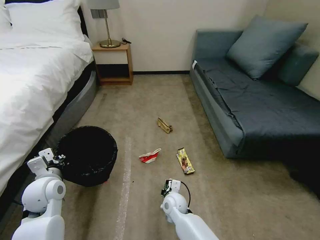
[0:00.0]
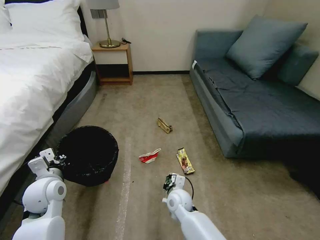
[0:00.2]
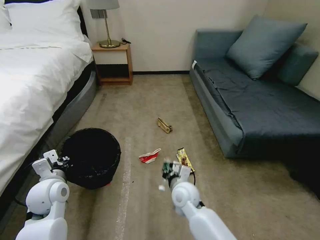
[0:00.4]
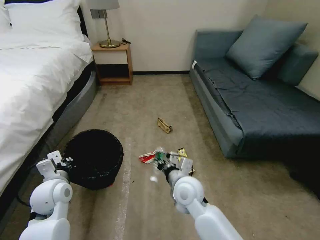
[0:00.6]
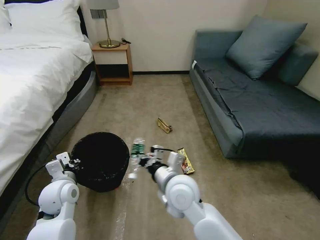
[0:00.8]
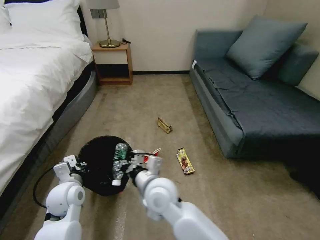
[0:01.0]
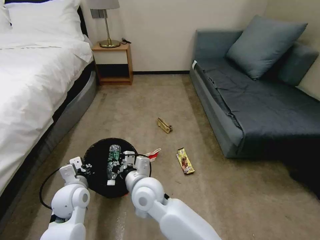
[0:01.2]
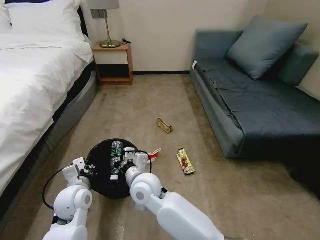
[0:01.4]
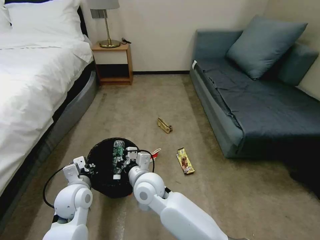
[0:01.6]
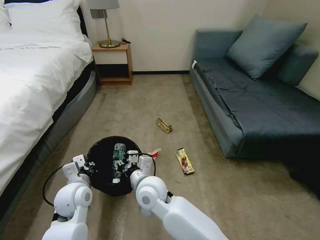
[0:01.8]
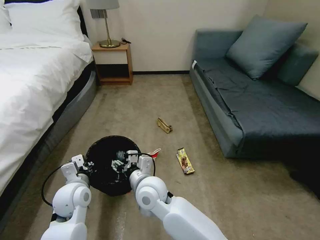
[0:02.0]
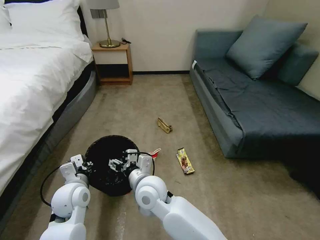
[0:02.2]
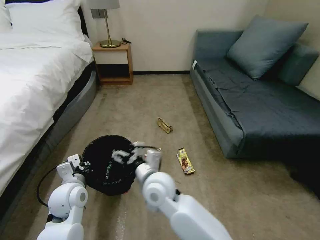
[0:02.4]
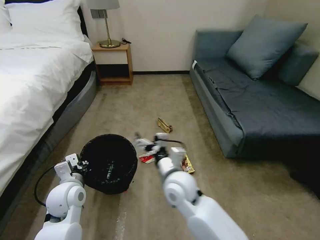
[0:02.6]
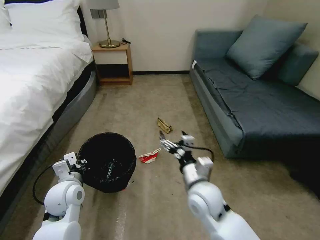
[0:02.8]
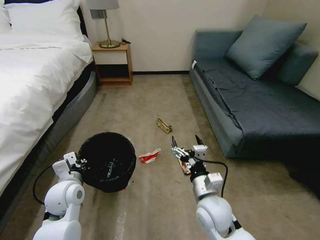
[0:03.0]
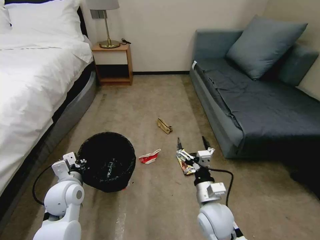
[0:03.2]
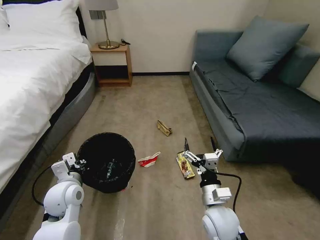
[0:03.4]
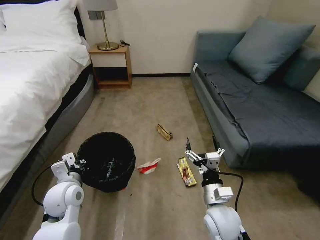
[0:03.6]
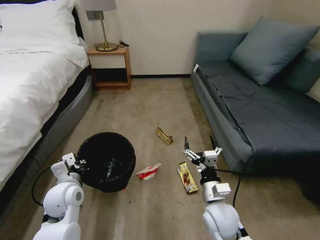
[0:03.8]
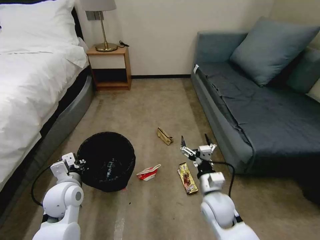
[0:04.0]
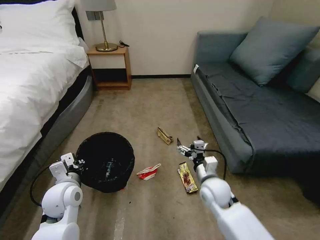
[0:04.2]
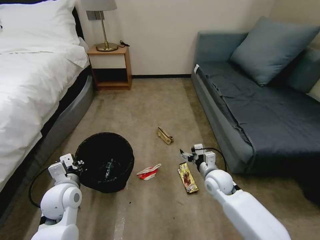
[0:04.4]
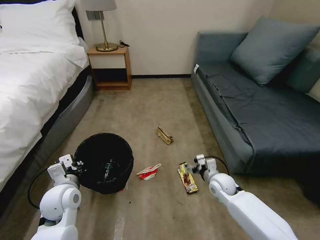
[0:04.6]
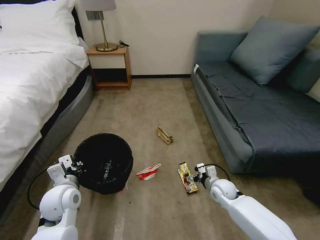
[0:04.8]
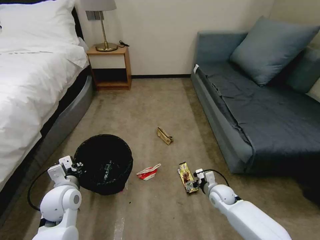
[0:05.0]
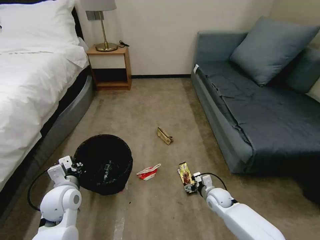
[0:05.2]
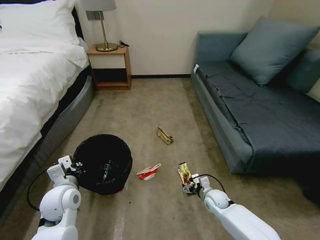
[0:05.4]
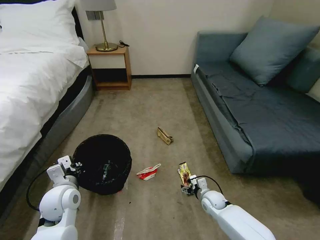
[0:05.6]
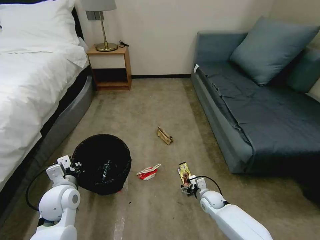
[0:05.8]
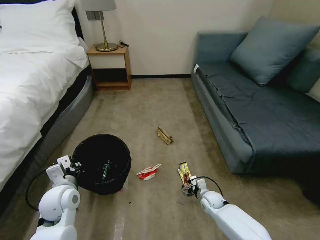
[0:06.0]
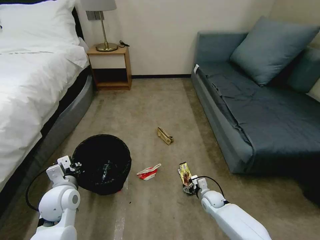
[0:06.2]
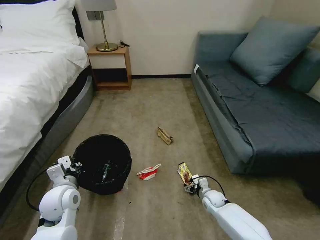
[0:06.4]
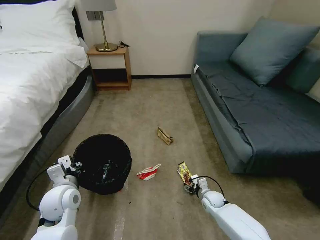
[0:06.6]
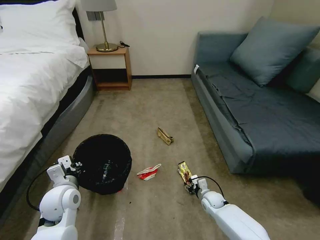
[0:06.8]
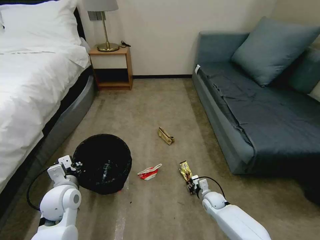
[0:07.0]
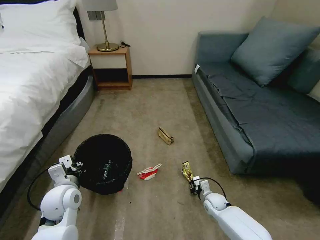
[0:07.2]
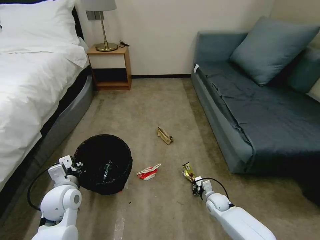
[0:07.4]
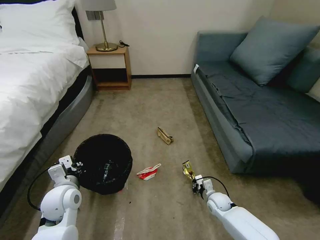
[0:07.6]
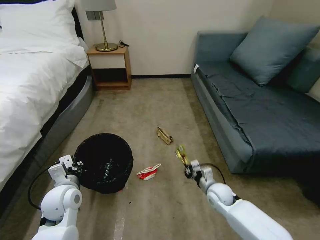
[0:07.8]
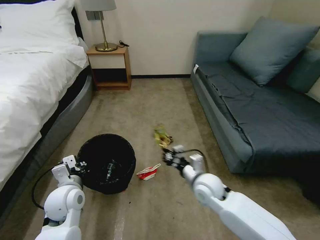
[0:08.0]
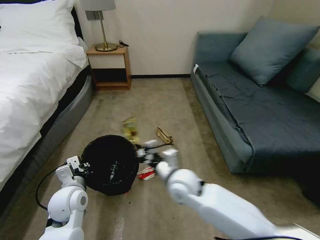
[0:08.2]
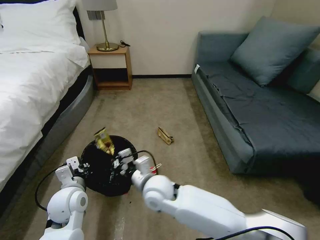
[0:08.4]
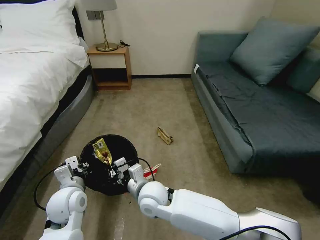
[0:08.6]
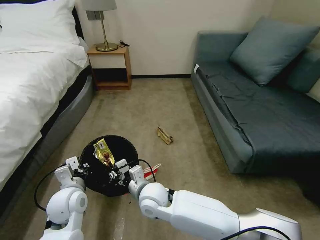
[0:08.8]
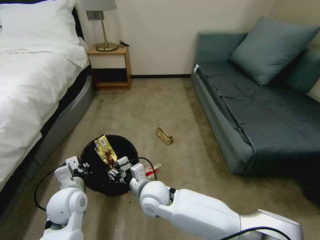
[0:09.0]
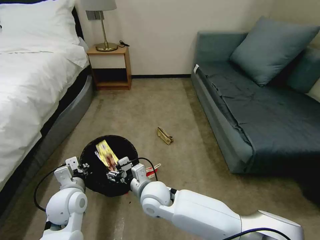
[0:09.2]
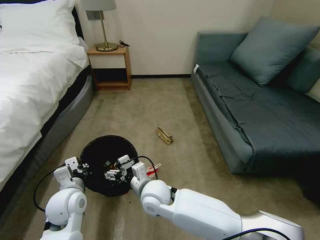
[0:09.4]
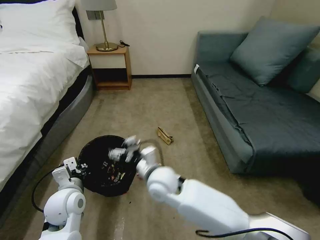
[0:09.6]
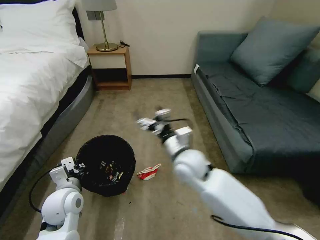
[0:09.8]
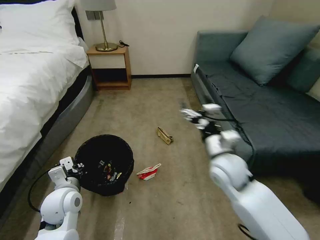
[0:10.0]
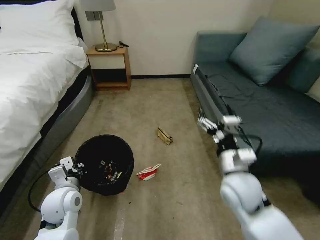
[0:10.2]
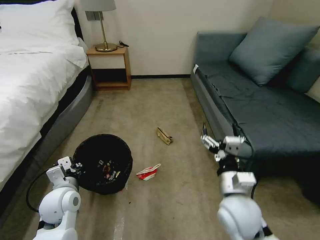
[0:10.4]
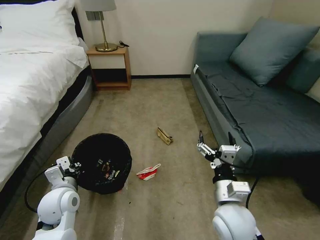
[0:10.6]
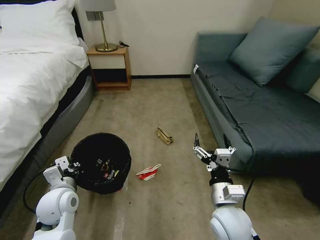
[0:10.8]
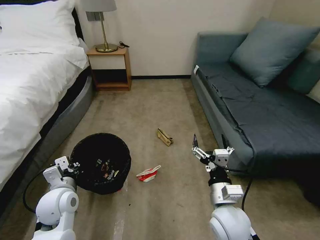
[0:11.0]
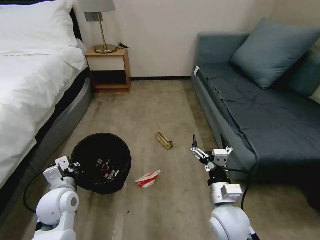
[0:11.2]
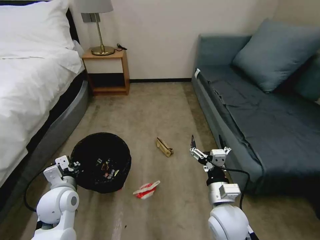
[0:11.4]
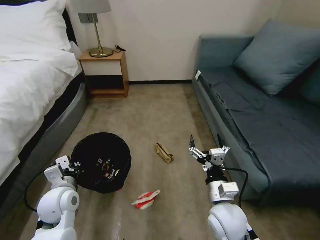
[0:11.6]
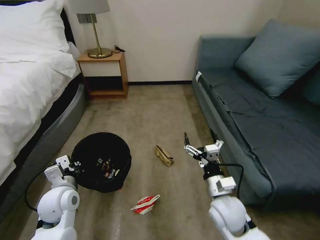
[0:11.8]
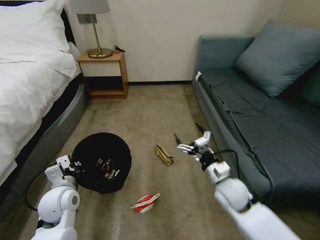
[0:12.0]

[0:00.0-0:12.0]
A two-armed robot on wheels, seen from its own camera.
Task of the whole recording: Pick up the trash bin, then pick up the garbage on the floor and place it into the trash bin.
0:00.0 to 0:01.6: The left gripper travels to the right by roughly 10 cm, while the right gripper shifts some 20 cm upward and to the left.
0:01.6 to 0:03.0: The right gripper shifts about 20 cm to the right, and opens.
0:03.0 to 0:04.4: The right gripper travels forward, to the right and downward by approximately 15 cm.
0:04.4 to 0:06.0: The right gripper heads downward, covering some 15 cm.
0:06.0 to 0:07.6: The right gripper closes its fingers.
0:07.6 to 0:09.0: The right gripper travels to the left and upward by about 35 cm, and opens.
0:09.0 to 0:10.4: The right gripper goes approximately 20 cm to the right, and opens up.
0:10.4 to 0:12.0: The right gripper heads forward and downward, covering about 10 cm.

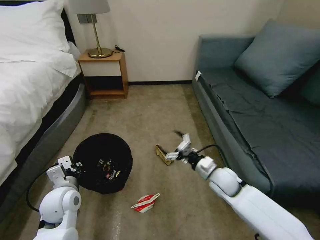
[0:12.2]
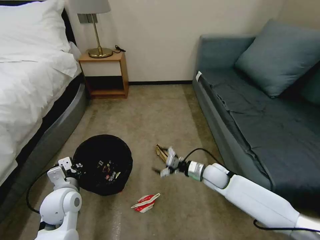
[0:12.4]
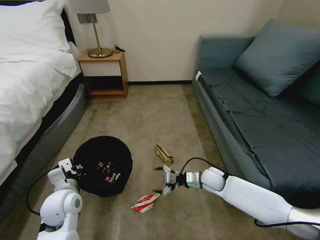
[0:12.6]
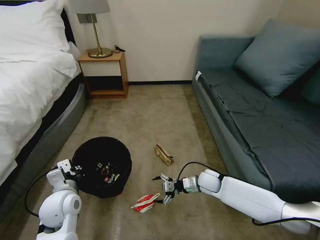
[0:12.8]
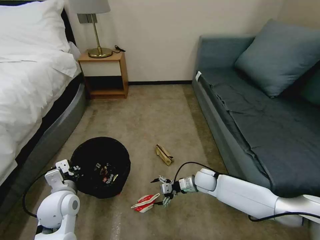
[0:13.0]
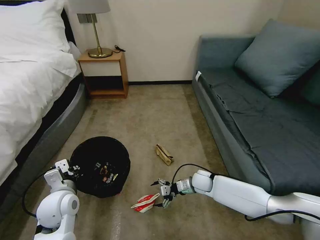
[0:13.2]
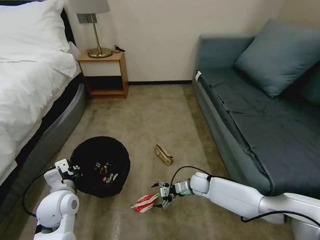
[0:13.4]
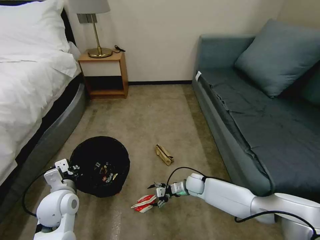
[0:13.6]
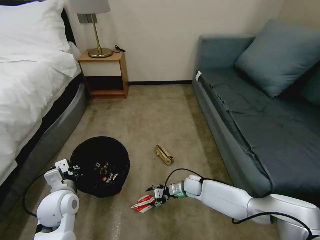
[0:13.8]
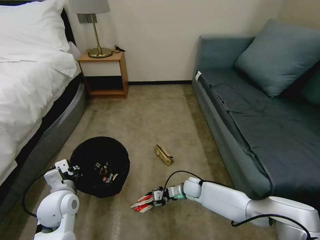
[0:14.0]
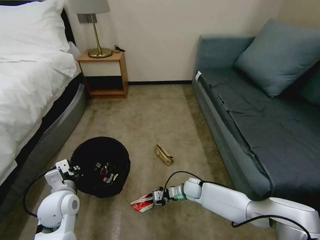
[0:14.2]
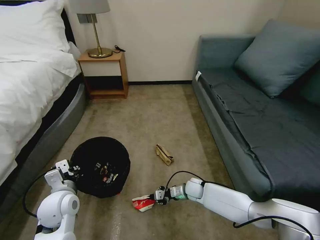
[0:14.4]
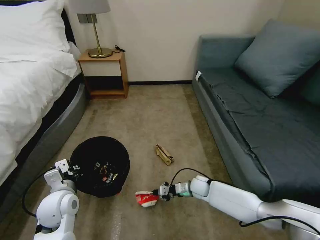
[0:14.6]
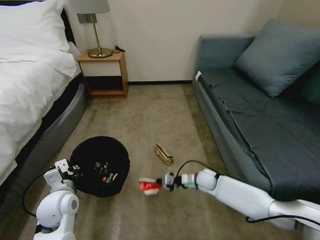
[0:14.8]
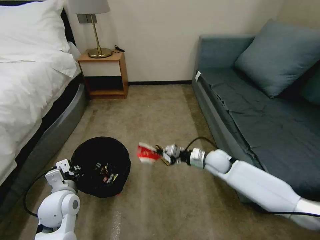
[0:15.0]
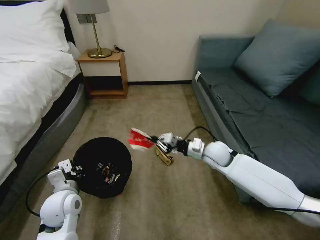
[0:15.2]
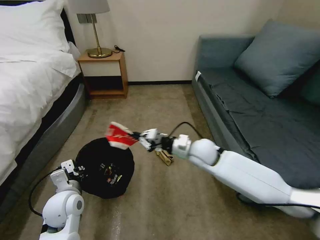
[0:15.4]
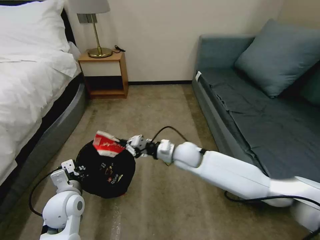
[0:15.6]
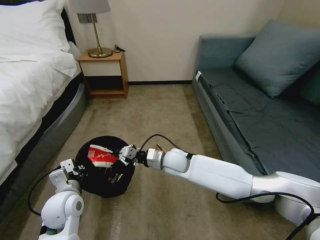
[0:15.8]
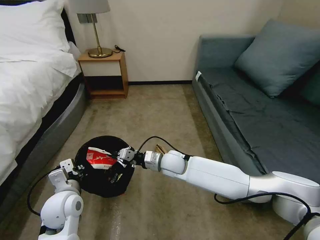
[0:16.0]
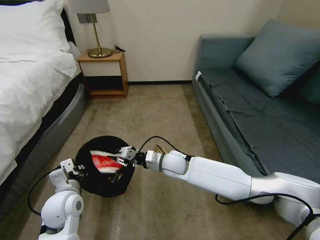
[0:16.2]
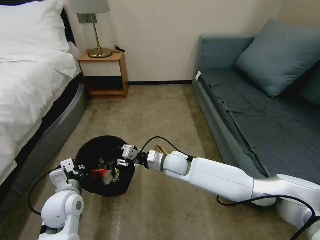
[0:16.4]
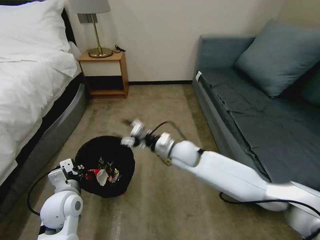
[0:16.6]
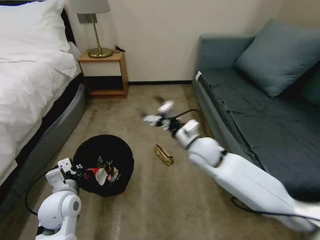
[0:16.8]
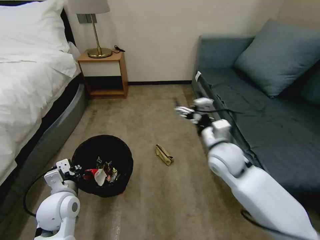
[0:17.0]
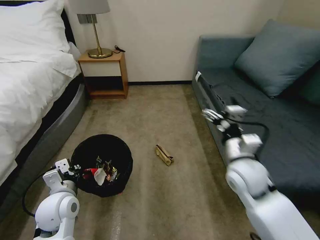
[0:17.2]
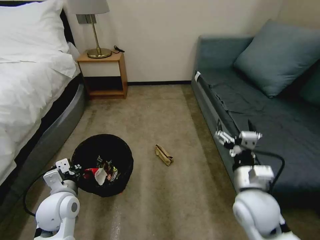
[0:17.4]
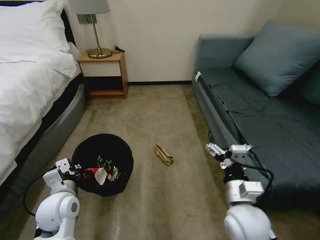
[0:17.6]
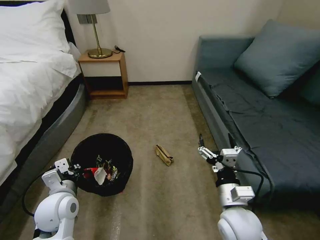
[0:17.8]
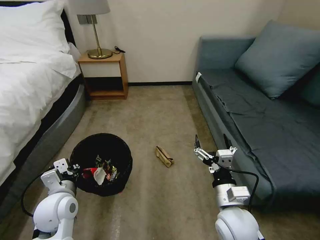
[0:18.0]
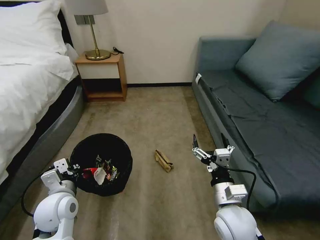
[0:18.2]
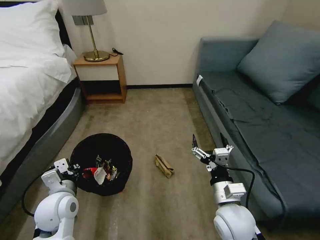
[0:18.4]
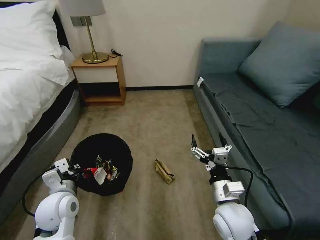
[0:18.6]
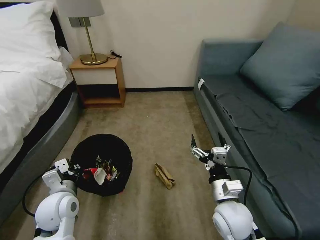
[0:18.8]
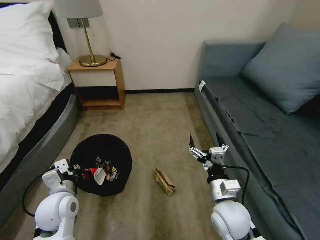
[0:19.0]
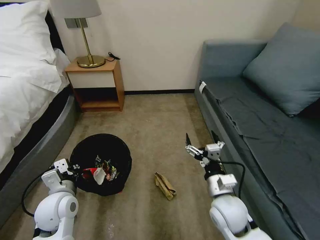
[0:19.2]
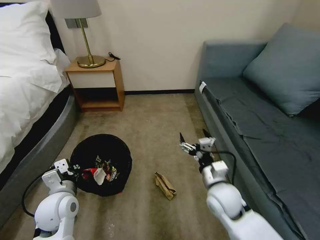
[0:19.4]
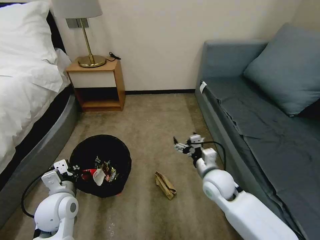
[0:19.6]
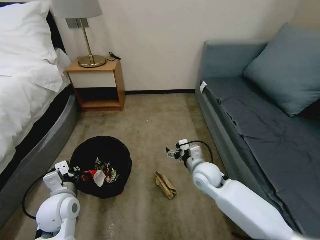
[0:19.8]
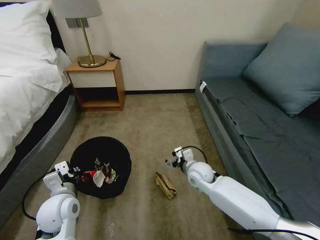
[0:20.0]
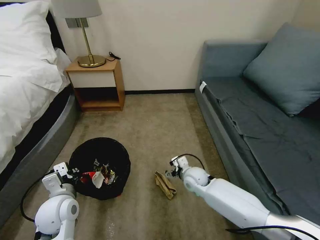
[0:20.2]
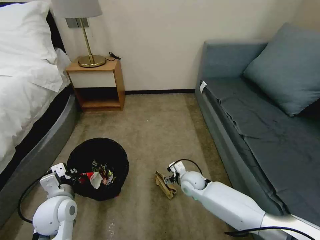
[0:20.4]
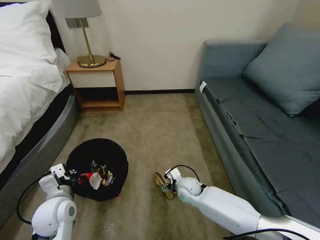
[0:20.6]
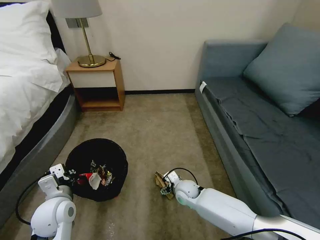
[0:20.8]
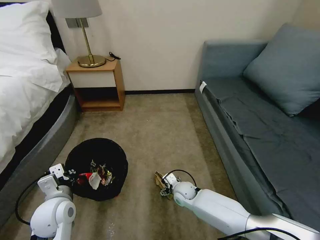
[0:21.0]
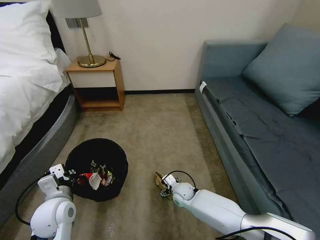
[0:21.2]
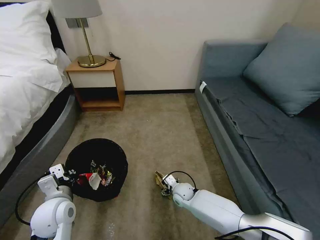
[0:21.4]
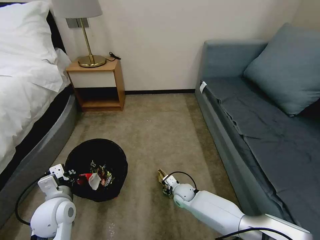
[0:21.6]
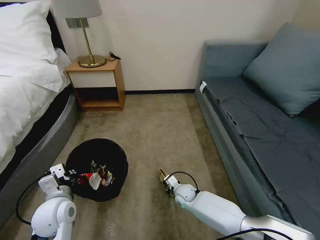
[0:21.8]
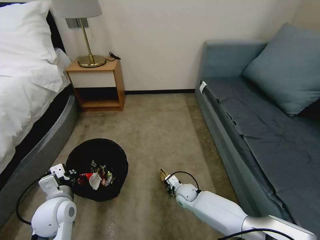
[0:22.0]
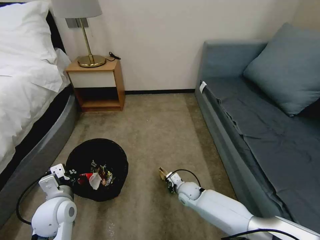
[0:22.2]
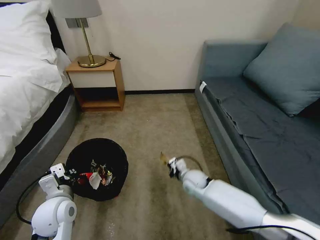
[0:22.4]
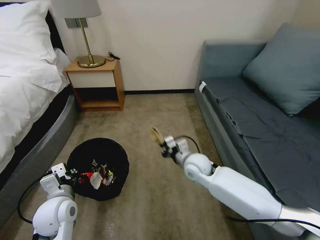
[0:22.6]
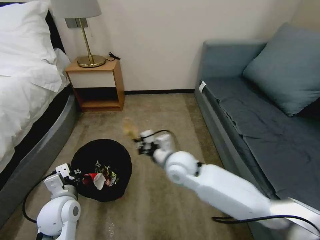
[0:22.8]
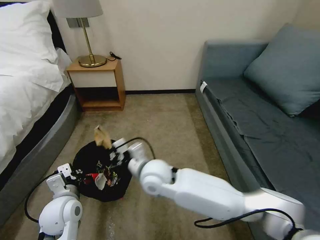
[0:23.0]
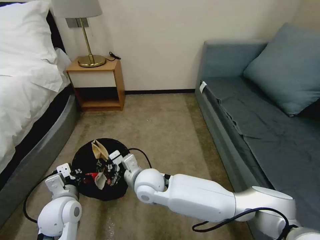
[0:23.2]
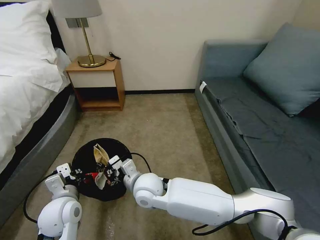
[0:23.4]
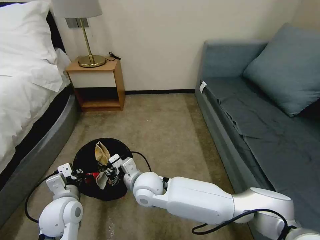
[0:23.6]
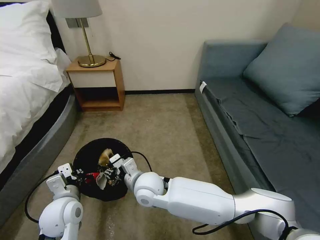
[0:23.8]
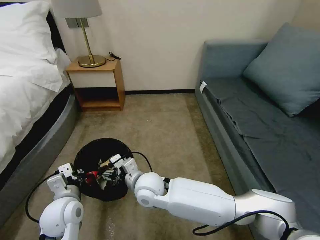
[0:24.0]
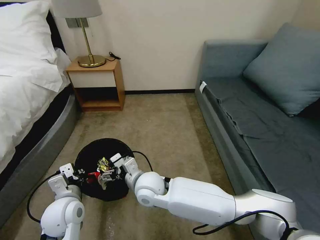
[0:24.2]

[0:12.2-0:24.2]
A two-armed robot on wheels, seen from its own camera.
Task of the whole recording: Pick up the trash bin, then pick up the garbage on the floor and place it into the trash bin.
0:12.2 to 0:13.8: The right gripper travels downward by approximately 15 cm, and closes up.
0:13.8 to 0:15.2: The right gripper is displaced upward by some 20 cm, and closes.
0:15.2 to 0:16.6: The right gripper moves to the left, roughly 15 cm, and opens up.
0:16.6 to 0:18.2: The right gripper heads backward and to the right, covering roughly 25 cm.
0:18.2 to 0:19.8: The right gripper travels forward by about 15 cm.
0:19.8 to 0:21.2: The right gripper heads downward, covering about 20 cm.
0:21.2 to 0:22.6: The right gripper heads upward, covering about 20 cm, and closes its fingers.
0:22.6 to 0:24.2: The right gripper goes about 20 cm to the left and backward, and opens.
